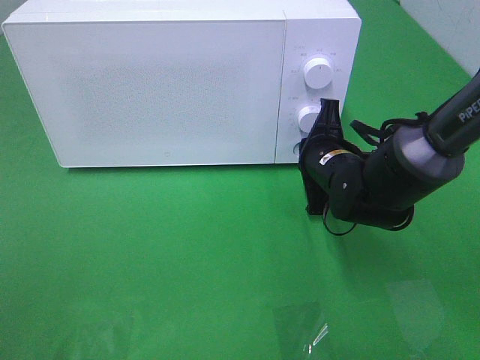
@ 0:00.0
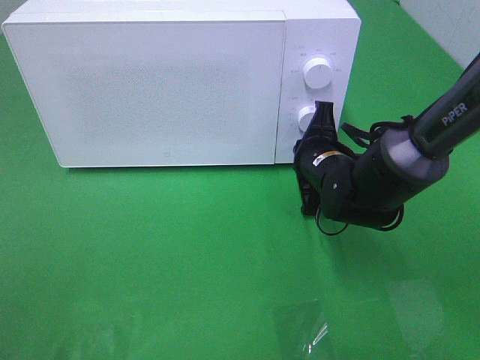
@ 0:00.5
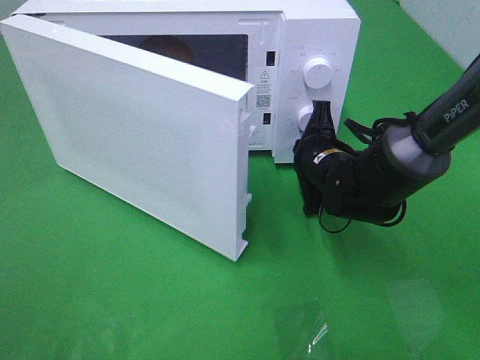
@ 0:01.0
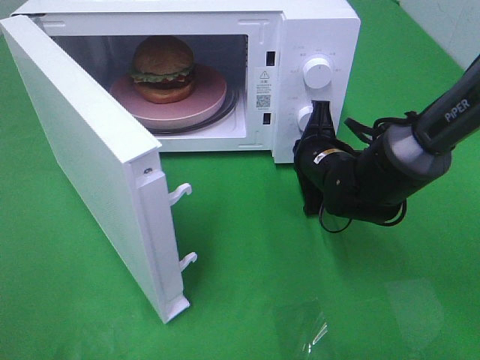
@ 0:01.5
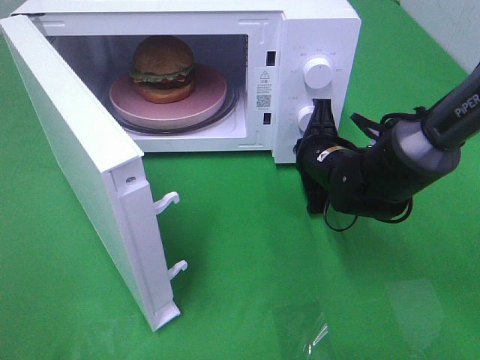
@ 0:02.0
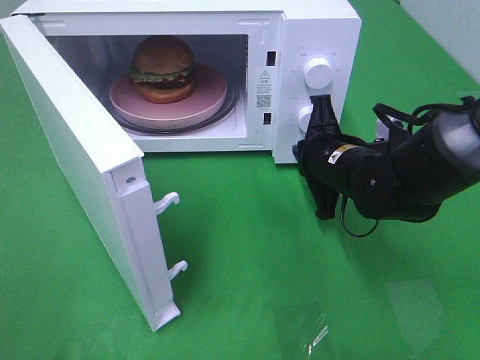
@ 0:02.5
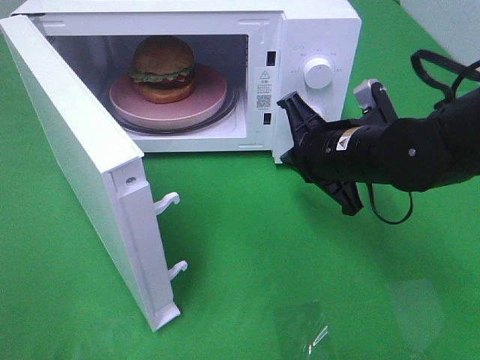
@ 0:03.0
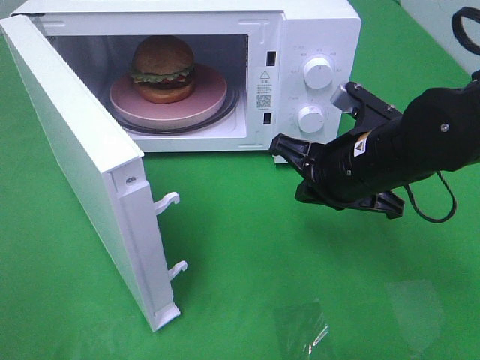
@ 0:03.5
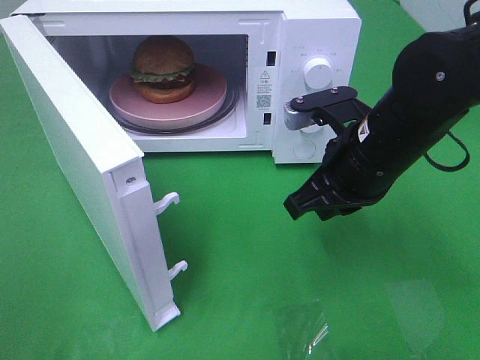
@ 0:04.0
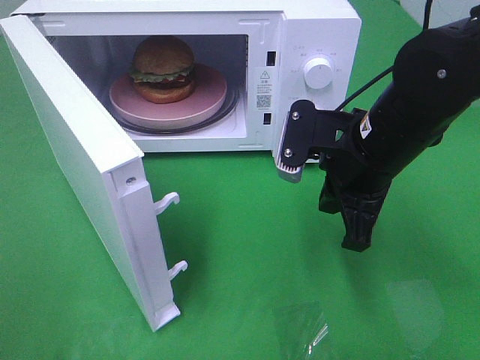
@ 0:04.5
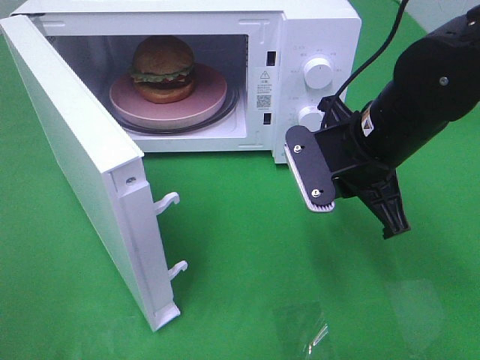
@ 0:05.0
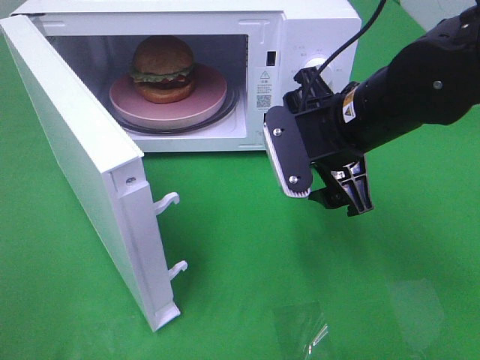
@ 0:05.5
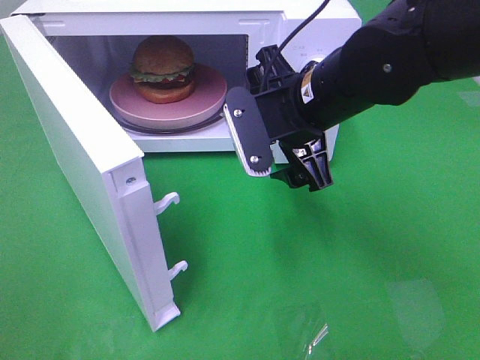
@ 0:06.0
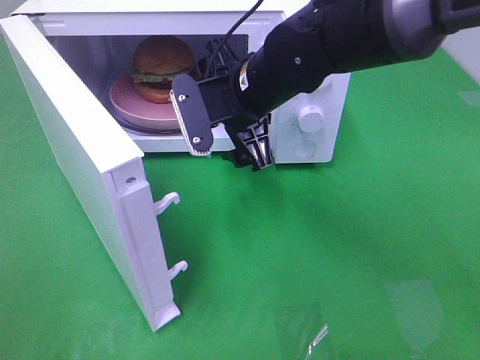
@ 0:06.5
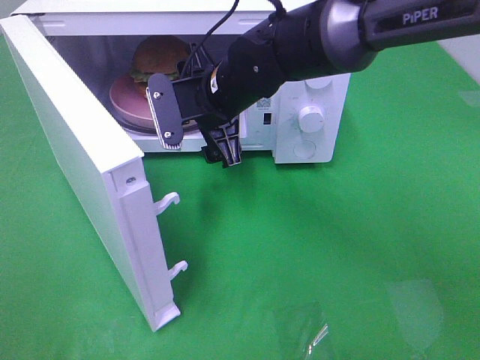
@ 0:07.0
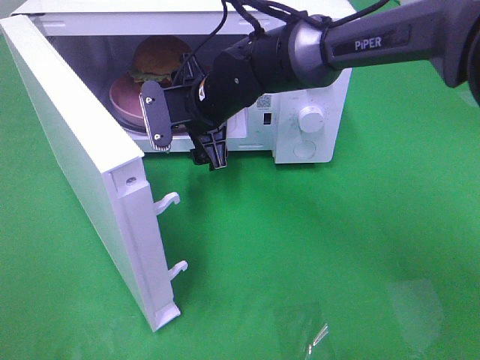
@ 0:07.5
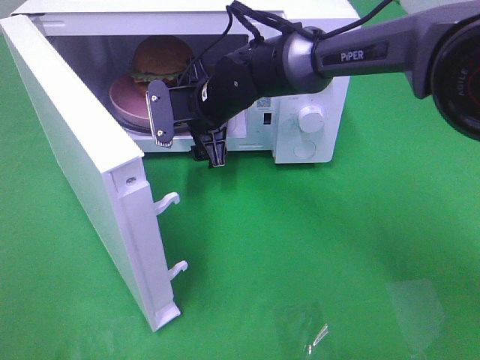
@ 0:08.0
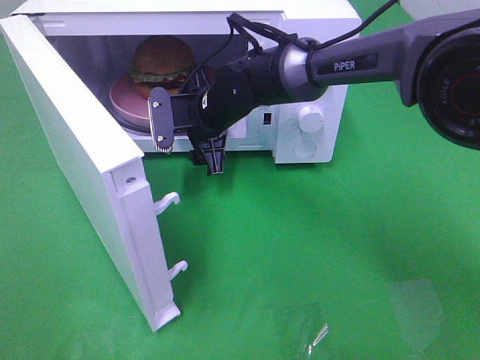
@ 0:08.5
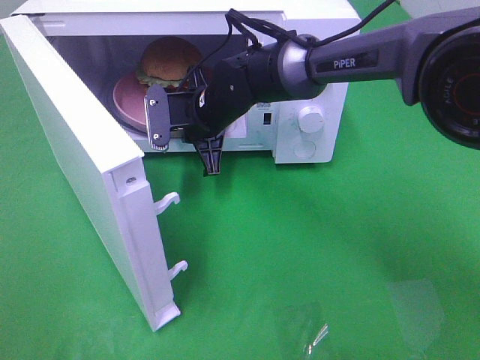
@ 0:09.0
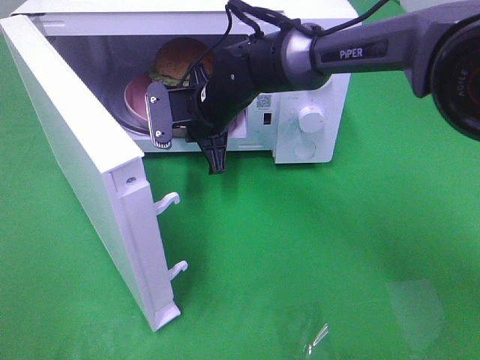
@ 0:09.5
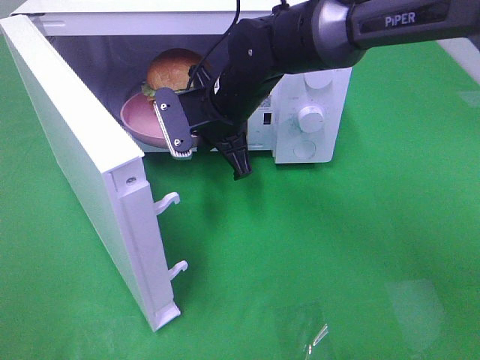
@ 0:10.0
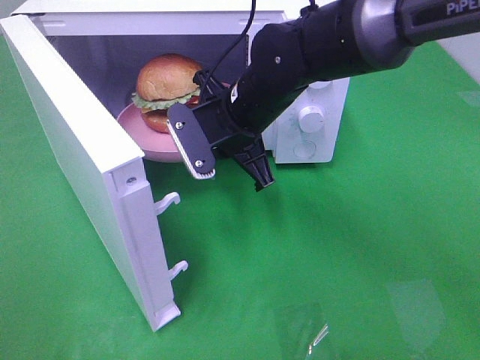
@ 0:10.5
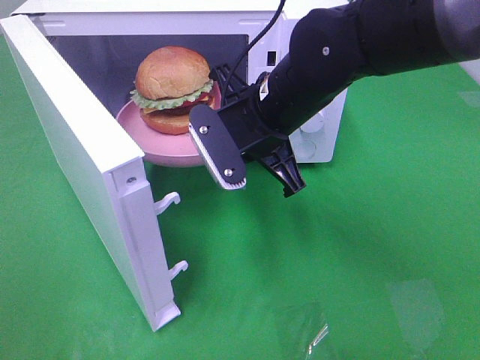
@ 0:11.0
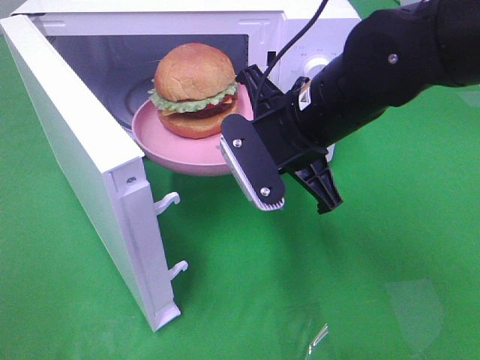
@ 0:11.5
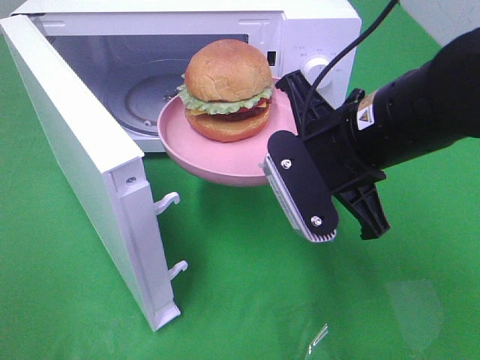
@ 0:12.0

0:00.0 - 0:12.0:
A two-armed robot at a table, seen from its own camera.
Task of the whole recording: Heat the burger.
Step, 0:00.0 - 0:02.0: Right hand: press the switch.
Step, 0:02.5 - 0:09.0: Right hand: grab the plate with the hamburger.
0:02.0 - 0:04.0: The right gripper heads upward and backward, covering approximately 15 cm.
0:04.0 - 0:06.0: The right gripper heads to the left, covering about 5 cm, and opens up.
0:06.0 - 0:08.0: The right gripper travels forward, to the left and downward by approximately 15 cm.
0:08.0 - 0:10.0: The right gripper closes.
0:10.0 - 0:12.0: The right gripper shifts some 20 cm backward, to the right and upward.

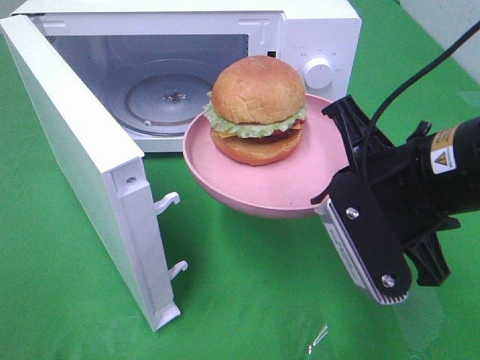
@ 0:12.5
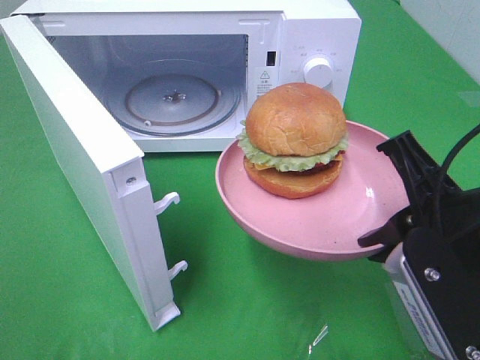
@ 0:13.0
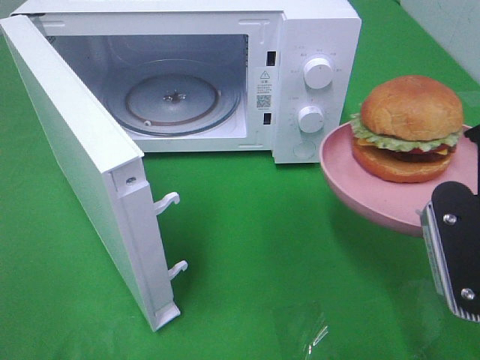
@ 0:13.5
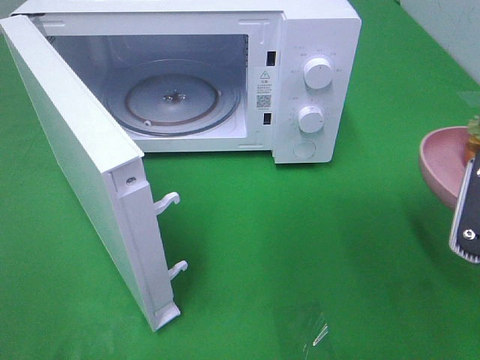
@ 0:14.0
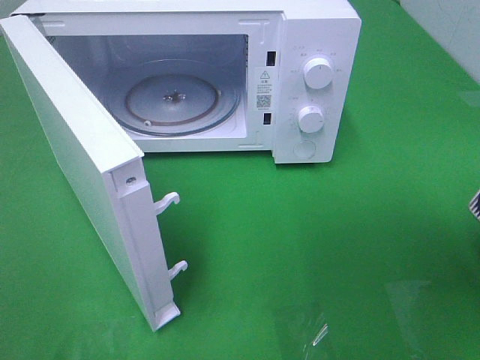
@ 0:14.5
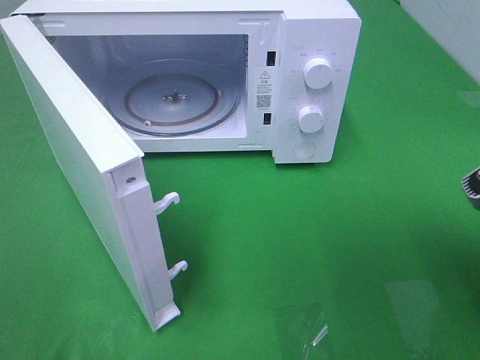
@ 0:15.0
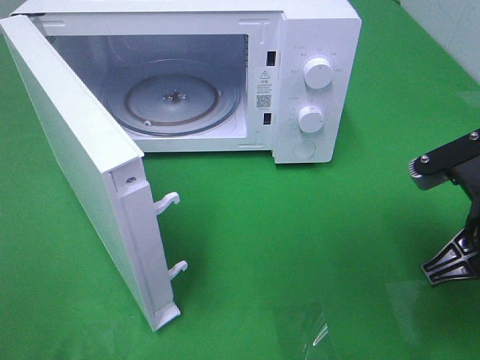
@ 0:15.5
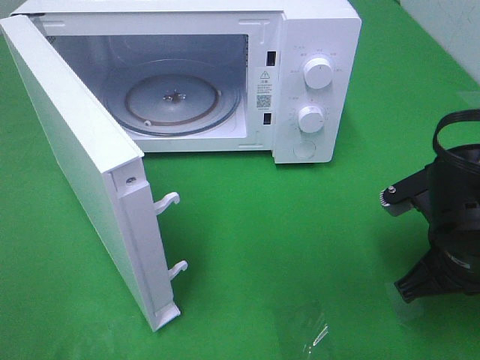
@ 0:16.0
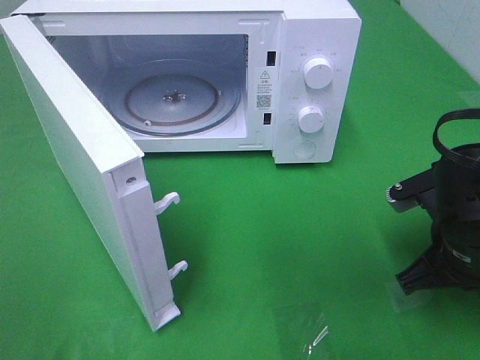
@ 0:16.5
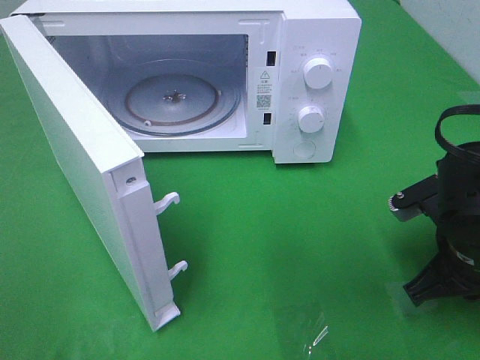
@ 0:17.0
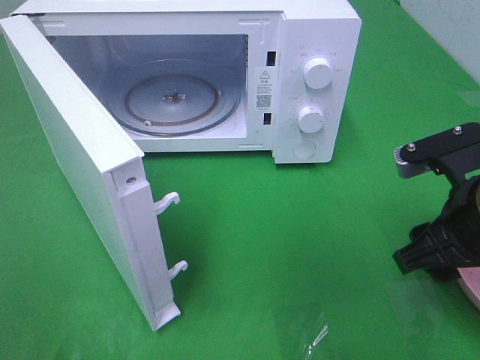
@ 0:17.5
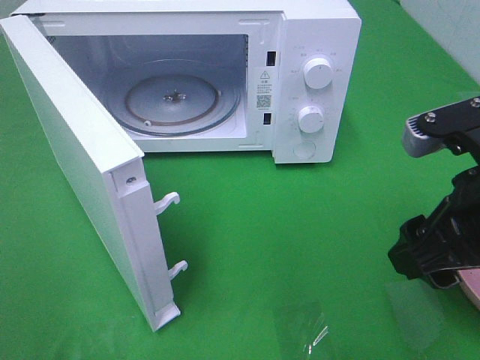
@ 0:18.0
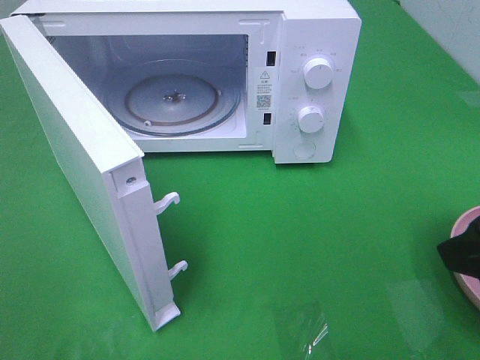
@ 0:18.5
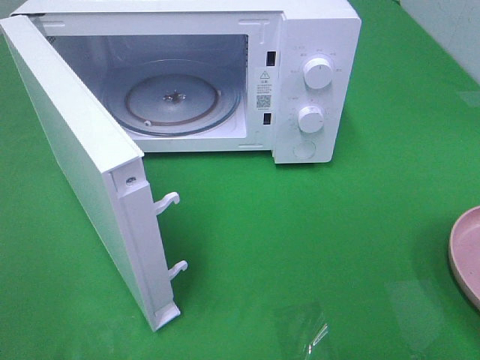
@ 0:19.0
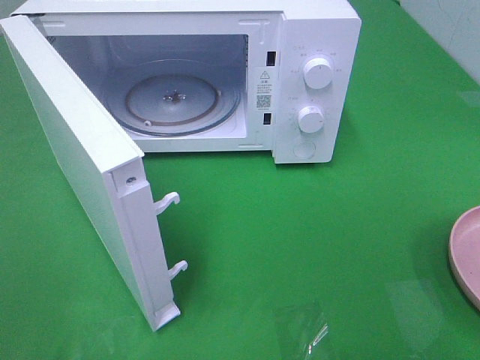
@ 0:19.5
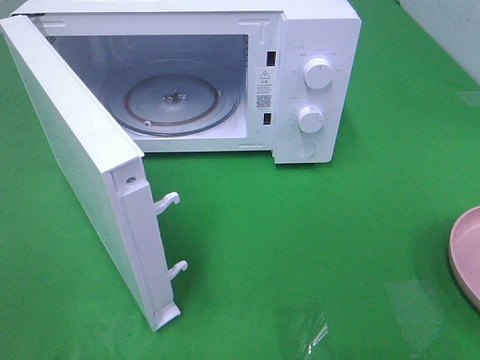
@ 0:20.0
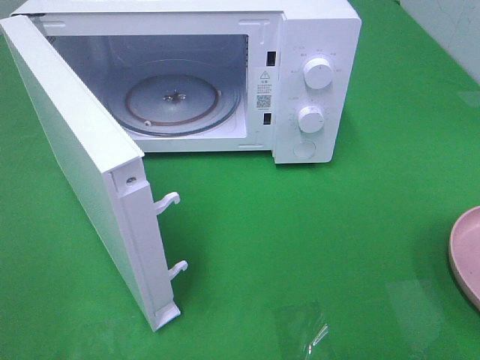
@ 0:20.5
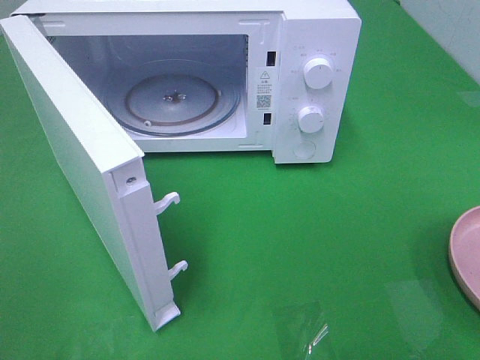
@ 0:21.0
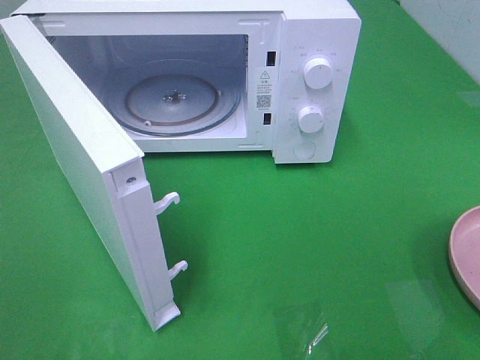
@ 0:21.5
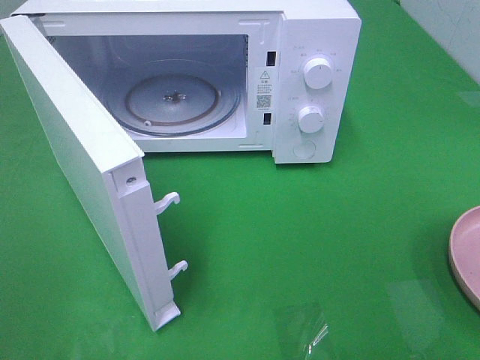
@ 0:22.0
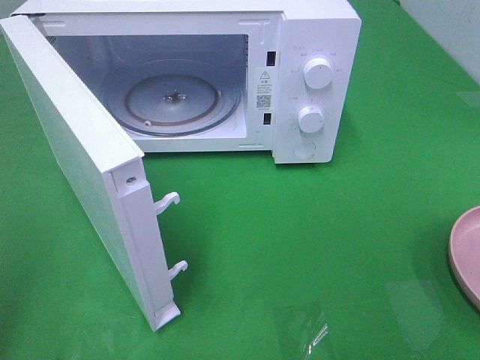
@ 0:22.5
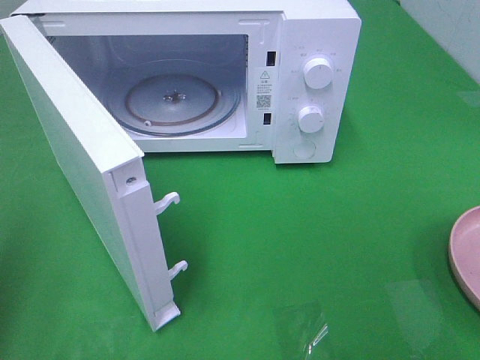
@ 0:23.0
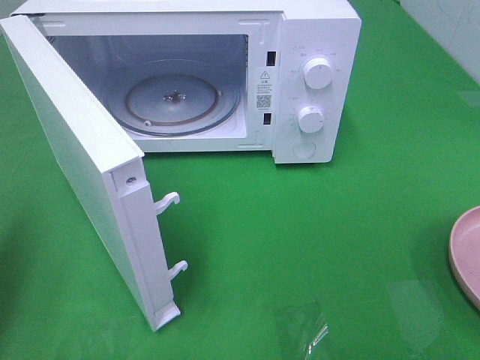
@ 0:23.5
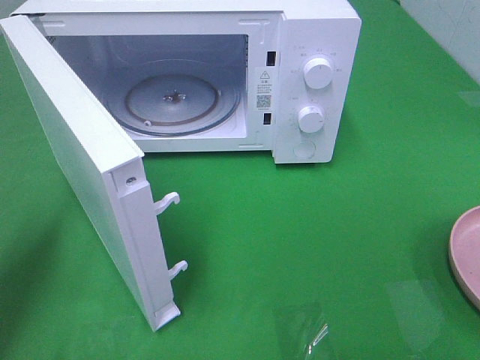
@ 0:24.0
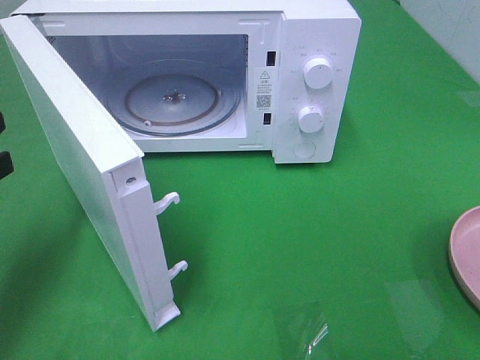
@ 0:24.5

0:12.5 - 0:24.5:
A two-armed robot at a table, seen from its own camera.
Task of the whole recording: Heat the burger.
Step, 0:12.5 - 0:17.0: Right hand: place the plate on the table.
0:12.5 - 0:14.5: The right gripper moves to the right and backward, roughly 10 cm.
0:14.5 - 0:16.5: The right gripper is displaced downward and forward by about 15 cm.
0:16.5 - 0:18.5: The right gripper shifts about 15 cm upward and backward, and opens its fingers.
0:18.5 - 0:20.5: The right gripper moves backward and to the right, roughly 15 cm.
0:22.5 - 0:24.5: The left gripper heads forward and downward, covering about 20 cm.

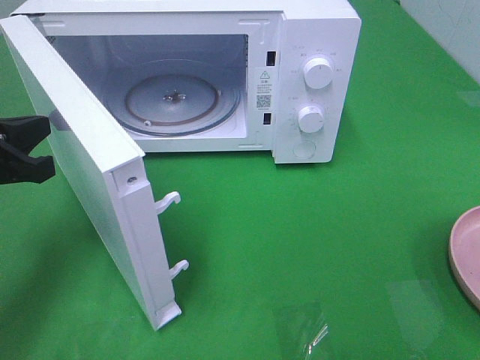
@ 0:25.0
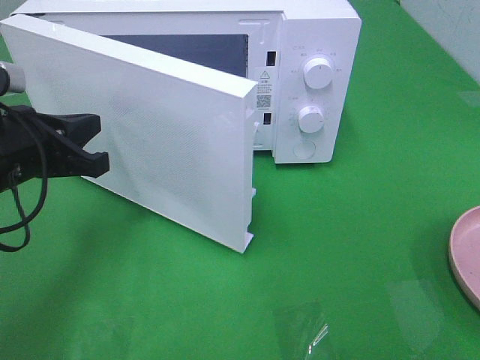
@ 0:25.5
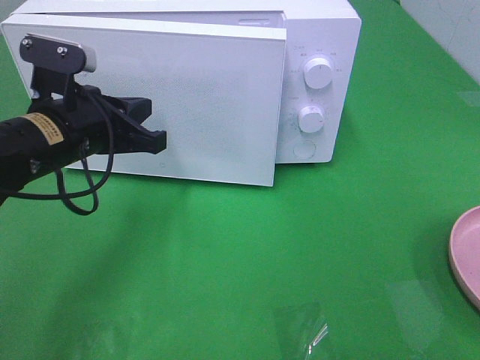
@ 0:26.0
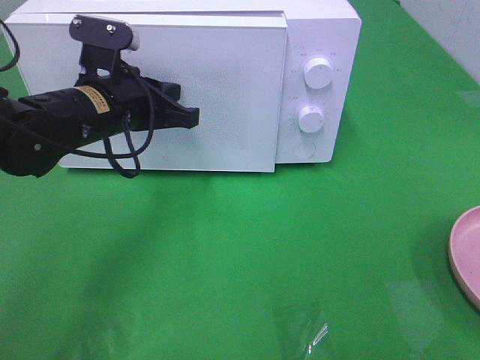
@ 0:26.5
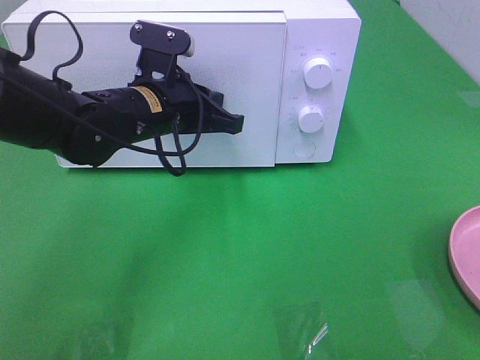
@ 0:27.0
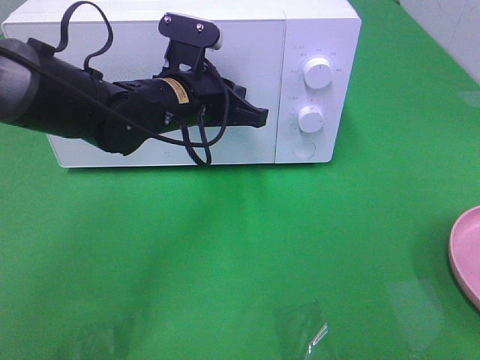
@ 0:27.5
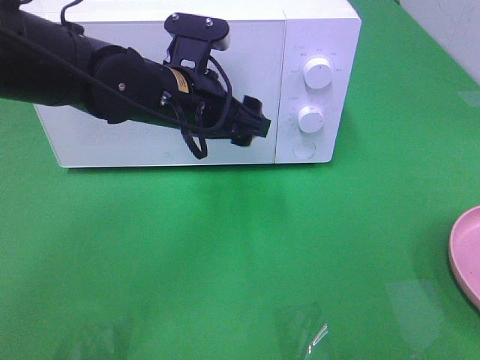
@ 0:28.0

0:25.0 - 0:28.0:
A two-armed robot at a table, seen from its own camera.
Task of the whole recording: Heat the burger.
Step, 0:25.0 - 0:27.5: Left hand: close the microwave door.
0:25.0 - 0:26.5: The left gripper goes some 15 cm to the right and forward.
0:26.5 - 0:28.0: The left gripper goes some 10 cm to the right, and opens its fingers.
